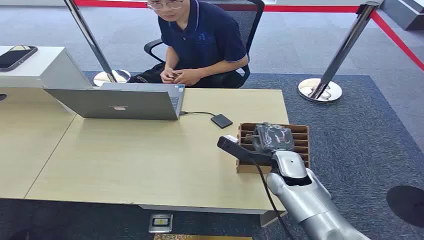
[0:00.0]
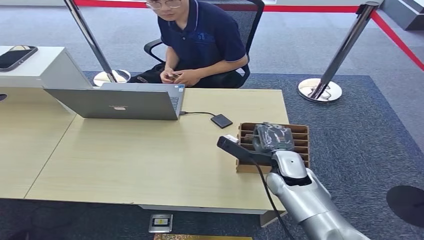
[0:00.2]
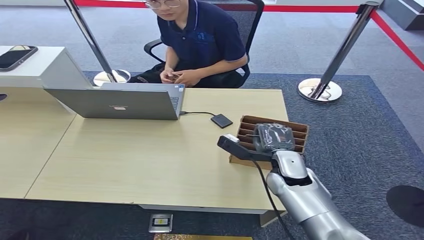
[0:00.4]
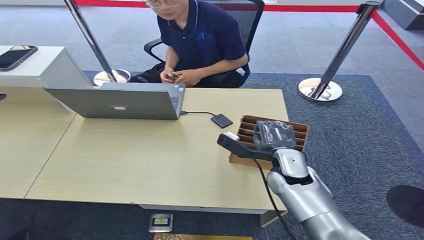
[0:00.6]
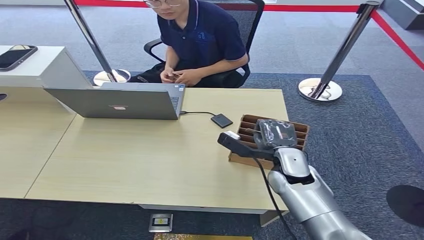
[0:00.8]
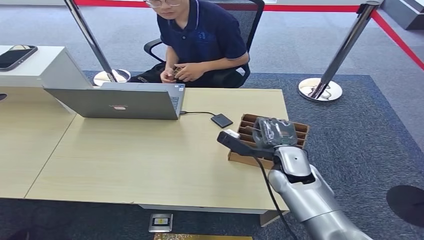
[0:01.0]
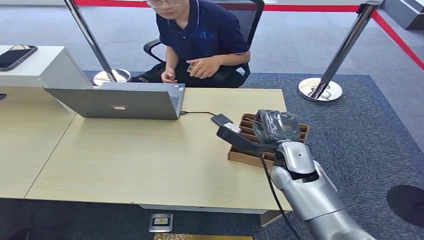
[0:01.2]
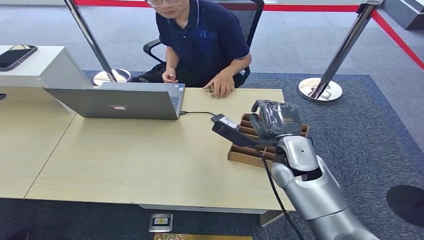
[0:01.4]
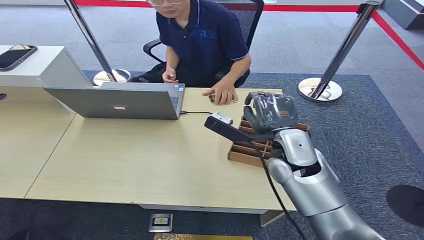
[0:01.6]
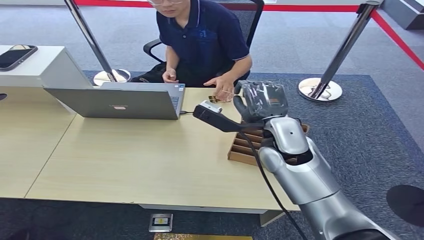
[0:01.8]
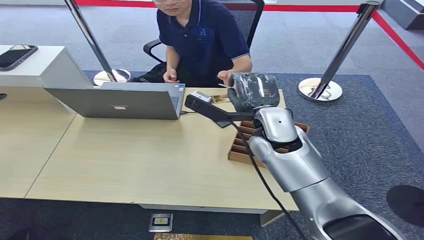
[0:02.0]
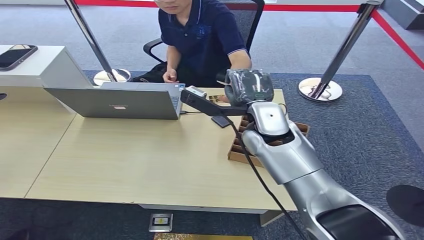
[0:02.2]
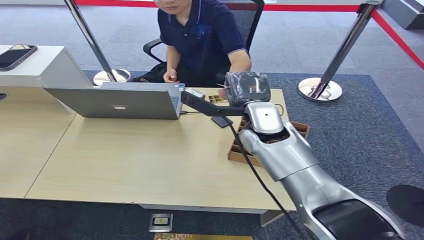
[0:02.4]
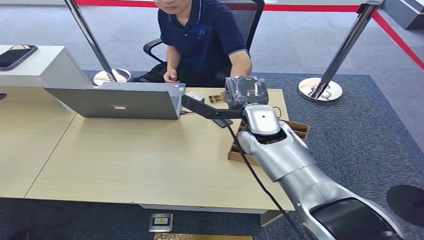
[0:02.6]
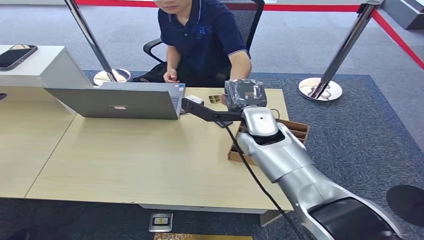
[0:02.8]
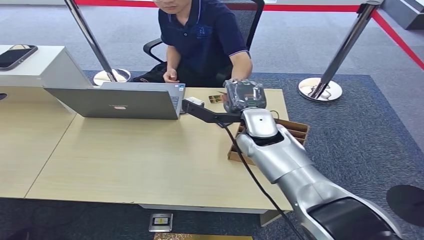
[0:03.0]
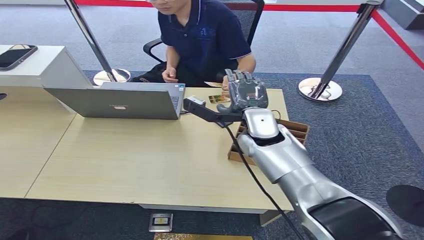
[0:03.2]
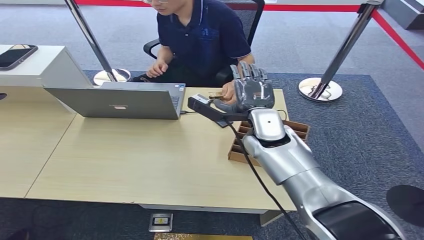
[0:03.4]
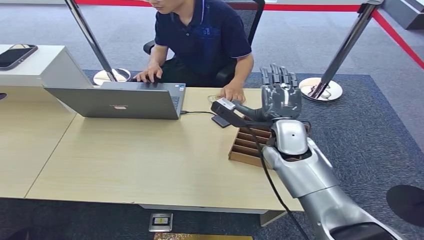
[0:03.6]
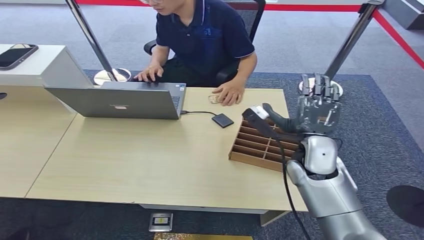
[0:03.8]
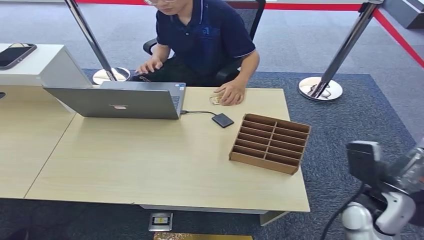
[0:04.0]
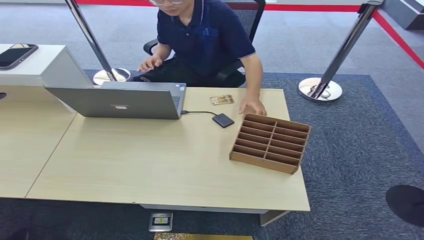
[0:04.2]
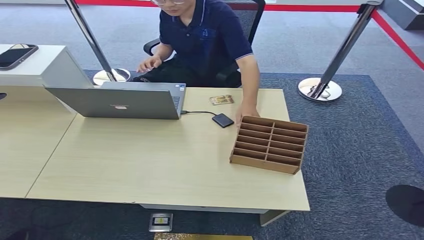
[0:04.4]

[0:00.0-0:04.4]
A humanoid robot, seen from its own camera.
Step, 0:00.0 to 0:01.4: Pick up the key card from the card box.
Step, 0:01.6 to 0:04.4: Hand the key card to the target.
0:01.4 to 0:03.0: The right hand shifts about 10 cm forward and to the left.
0:03.0 to 0:04.4: The right hand is displaced to the right, backward and downward by some 50 cm.

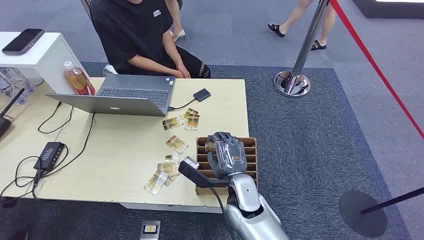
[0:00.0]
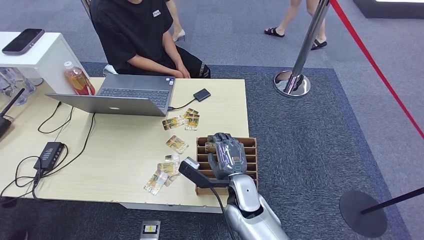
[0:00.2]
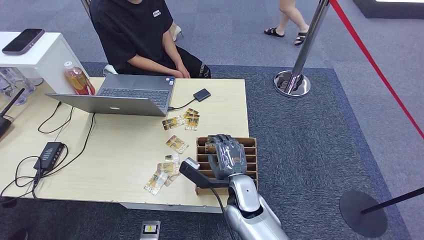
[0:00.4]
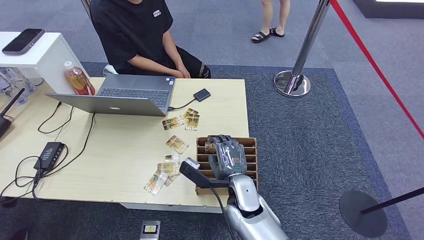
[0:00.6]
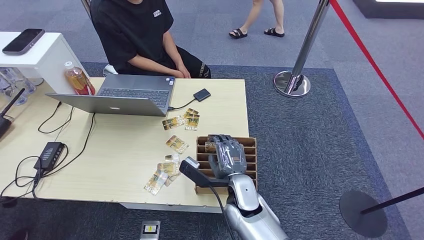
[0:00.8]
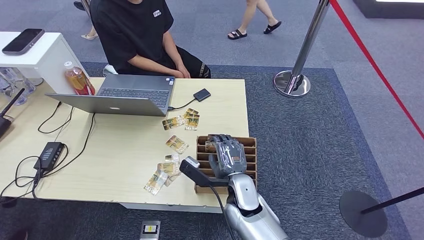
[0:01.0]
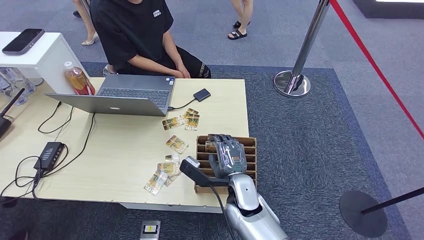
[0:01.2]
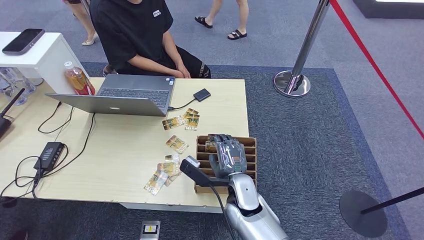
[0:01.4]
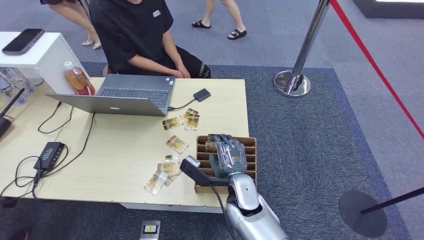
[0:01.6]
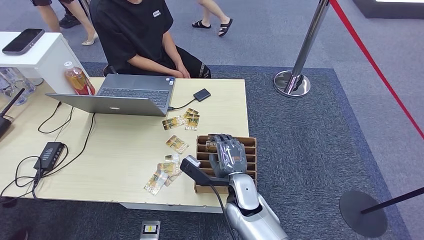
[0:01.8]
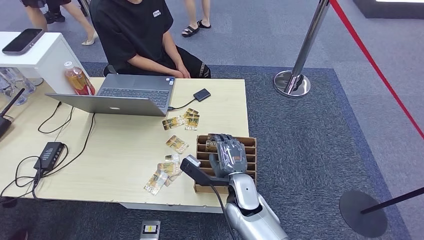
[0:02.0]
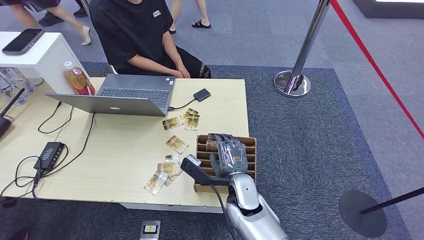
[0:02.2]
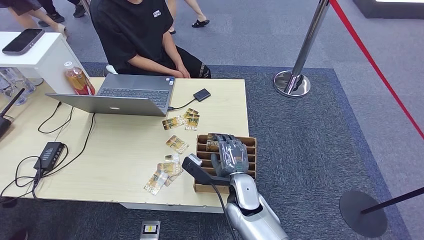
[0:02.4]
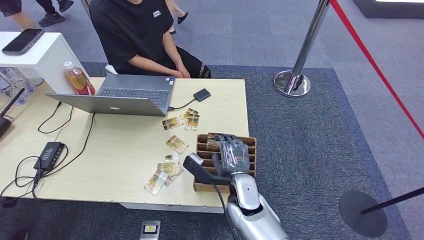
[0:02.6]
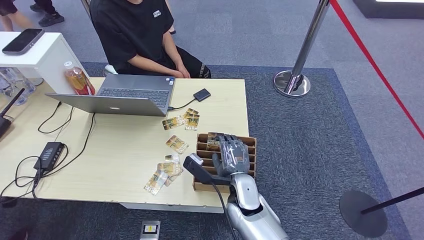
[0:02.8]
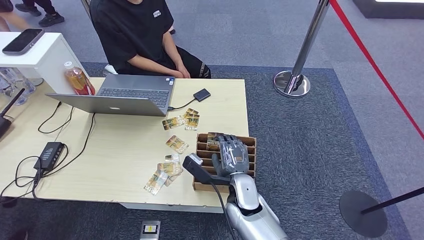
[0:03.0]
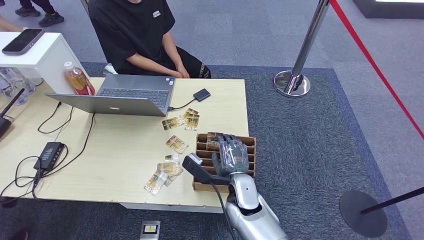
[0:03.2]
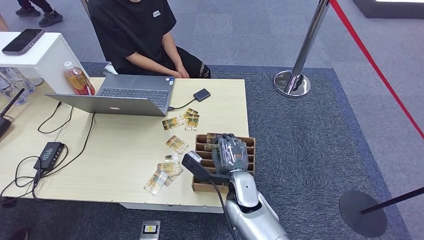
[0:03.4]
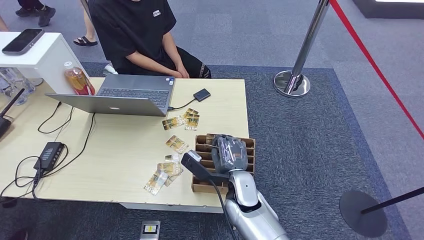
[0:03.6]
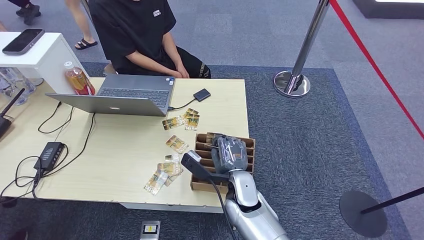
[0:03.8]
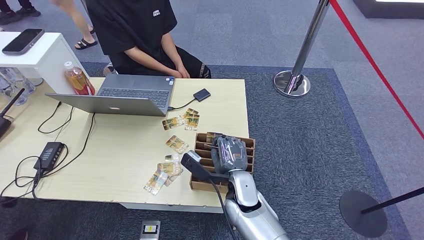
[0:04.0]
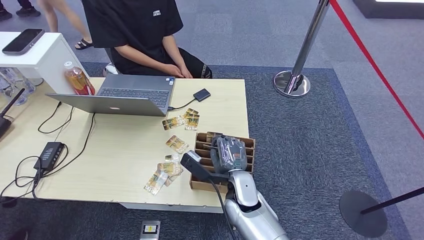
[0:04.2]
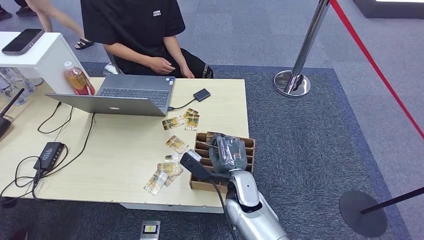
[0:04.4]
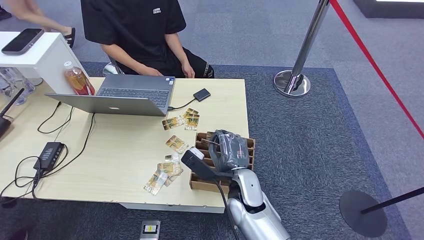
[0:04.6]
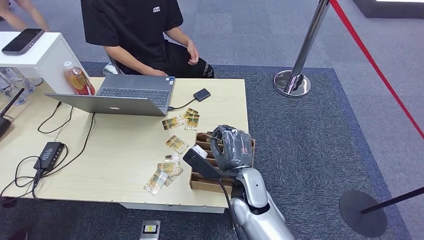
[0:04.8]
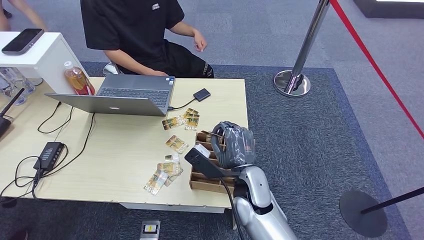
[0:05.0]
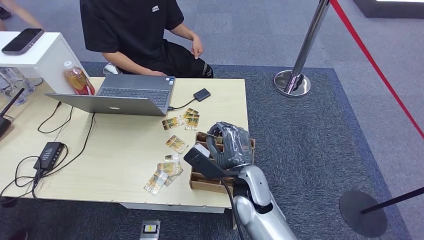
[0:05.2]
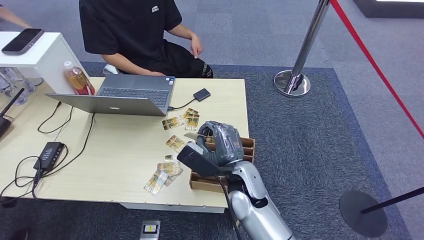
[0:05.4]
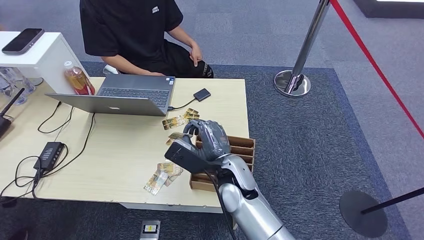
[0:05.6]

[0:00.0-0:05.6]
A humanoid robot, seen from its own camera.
Step, 0:00.0 to 0:05.6: Pick up the key card from the card box.
0:01.4 to 0:04.2: The two hands keep their place.
0:04.2 to 0:05.6: The right hand travels upward by roughly 5 cm.
